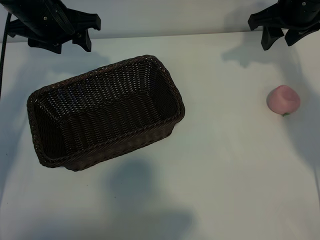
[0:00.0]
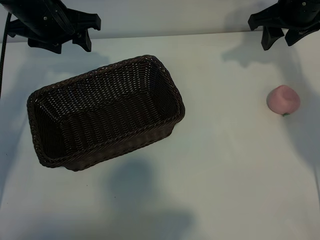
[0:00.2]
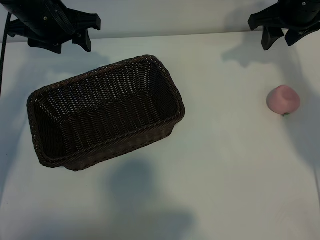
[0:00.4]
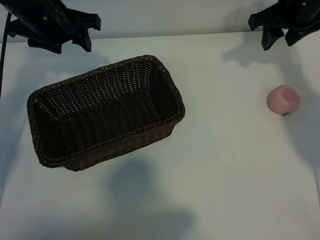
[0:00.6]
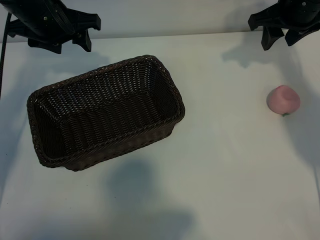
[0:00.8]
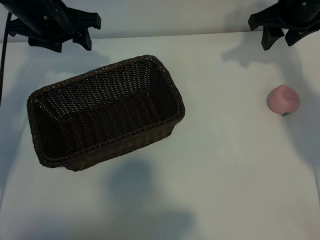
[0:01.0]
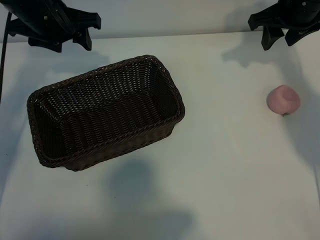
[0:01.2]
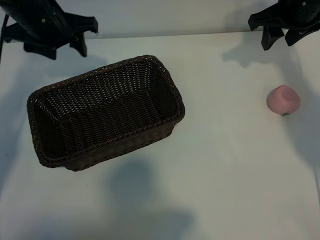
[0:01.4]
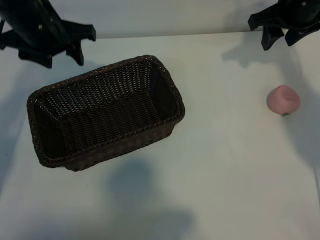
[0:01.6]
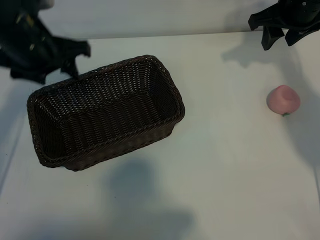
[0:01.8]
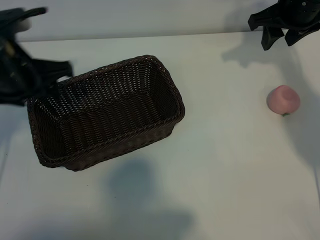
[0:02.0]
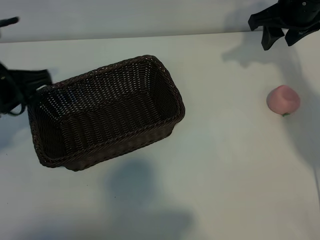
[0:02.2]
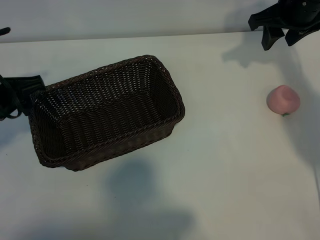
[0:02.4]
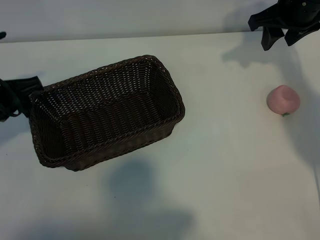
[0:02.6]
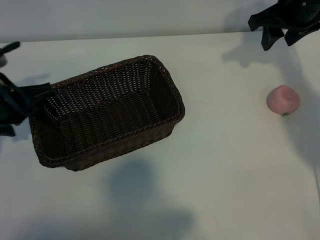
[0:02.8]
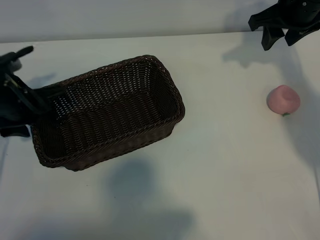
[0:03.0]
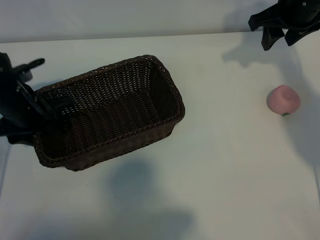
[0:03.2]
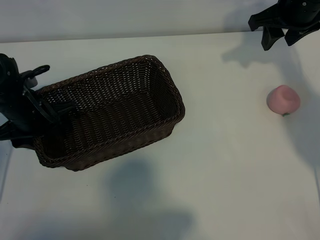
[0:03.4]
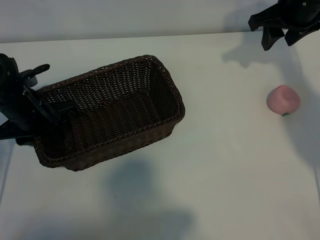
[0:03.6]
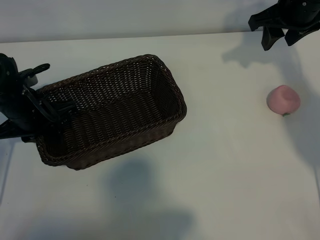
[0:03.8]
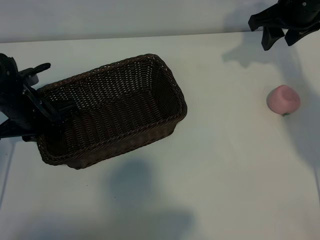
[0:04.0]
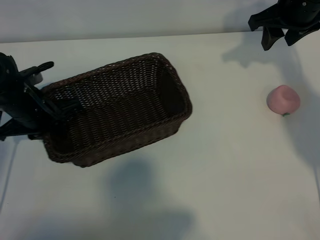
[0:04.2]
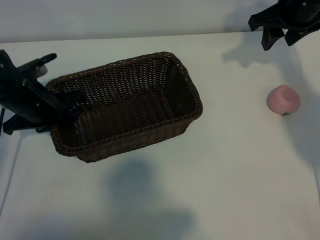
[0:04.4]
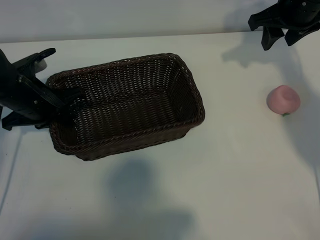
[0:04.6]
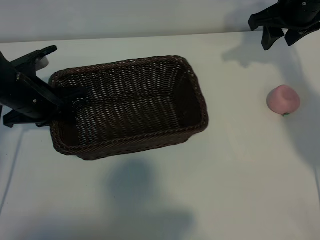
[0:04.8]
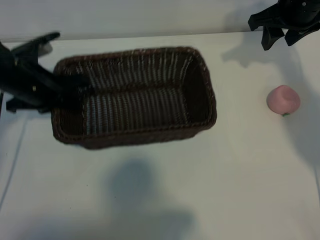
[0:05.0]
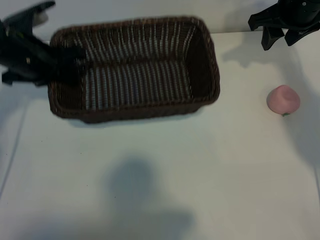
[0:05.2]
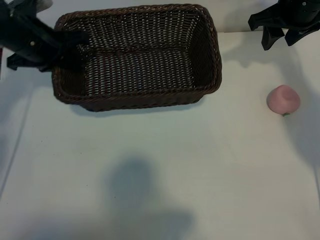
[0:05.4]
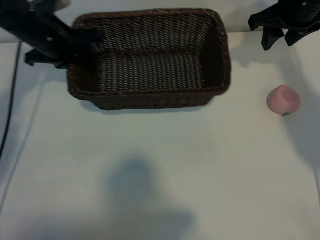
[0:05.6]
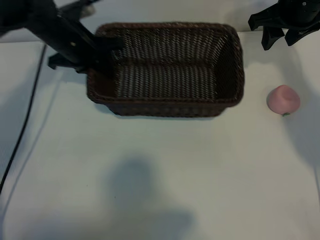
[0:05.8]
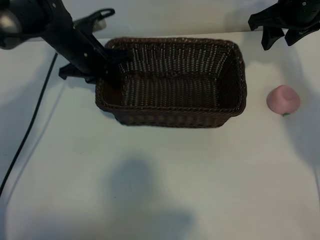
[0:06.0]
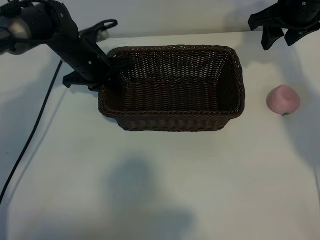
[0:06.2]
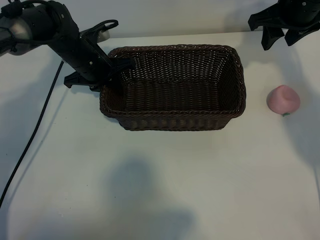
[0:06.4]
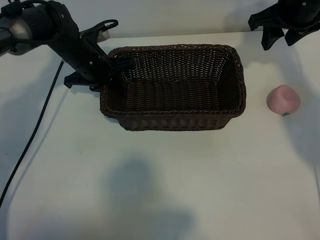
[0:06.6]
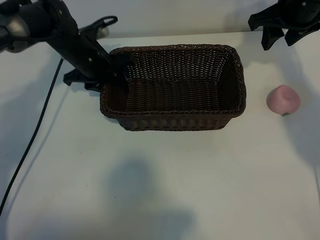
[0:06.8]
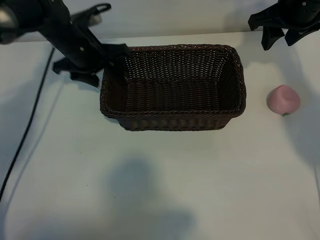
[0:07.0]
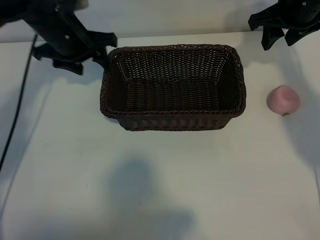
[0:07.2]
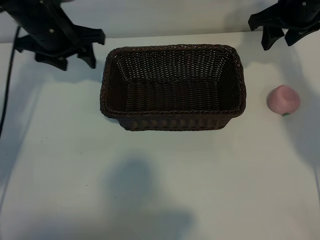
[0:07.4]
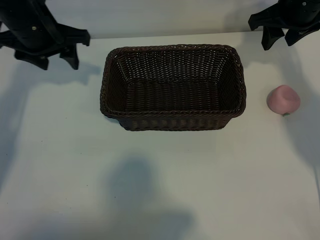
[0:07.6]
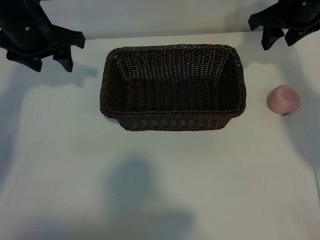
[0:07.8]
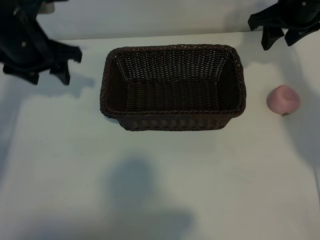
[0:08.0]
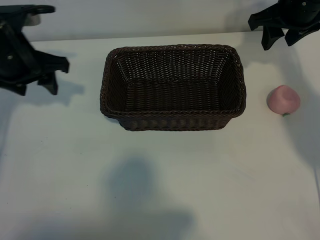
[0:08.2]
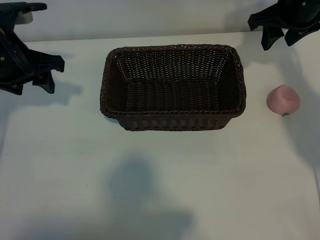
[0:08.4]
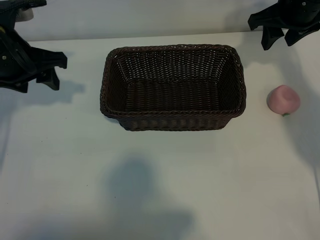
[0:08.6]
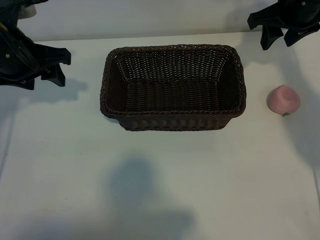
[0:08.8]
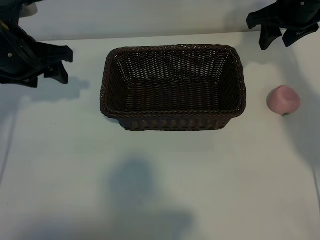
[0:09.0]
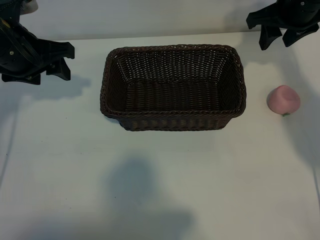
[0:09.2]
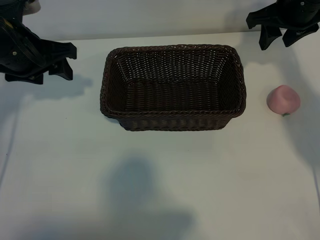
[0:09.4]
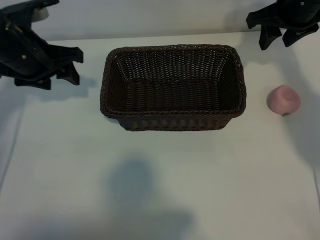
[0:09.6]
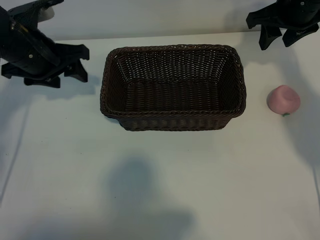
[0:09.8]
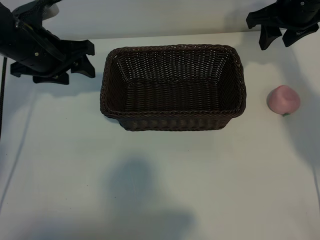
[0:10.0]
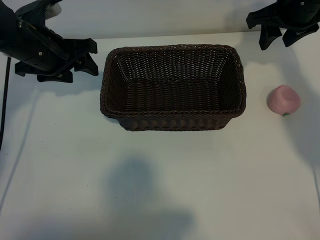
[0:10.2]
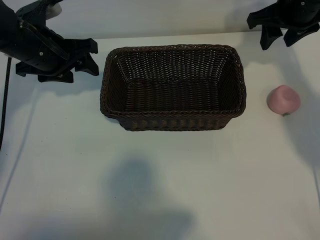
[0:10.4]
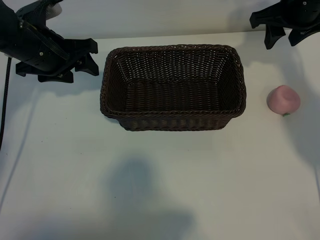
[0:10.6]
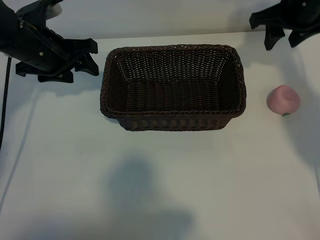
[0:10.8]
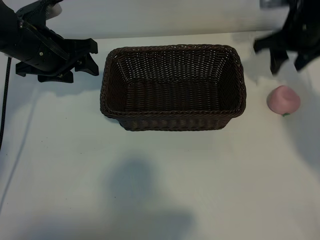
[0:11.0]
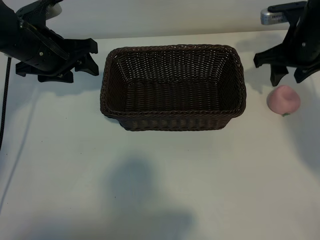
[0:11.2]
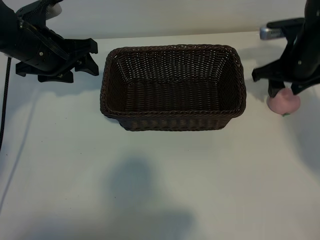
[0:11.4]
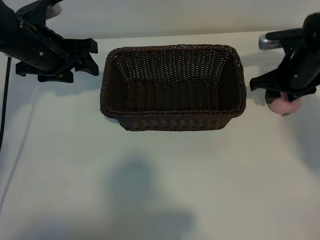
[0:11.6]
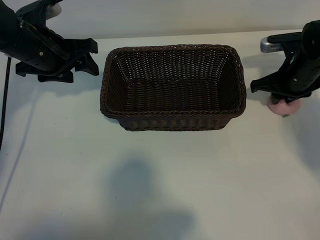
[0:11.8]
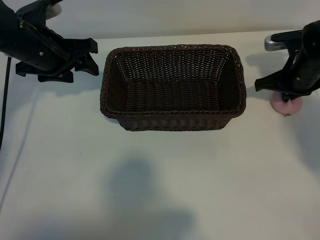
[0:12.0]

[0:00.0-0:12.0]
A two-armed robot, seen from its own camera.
Task of the whole recording: pick up the peach and put it into the basket.
Step, 0:01.0 to 0:03.6: Grasp the basket with left gripper.
Step, 0:03.8 to 0:06.8: Place the basket in the center of view with left gripper.
Step, 0:07.2 to 0:11.8: Grasp the peach with right gripper.

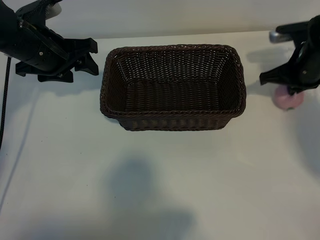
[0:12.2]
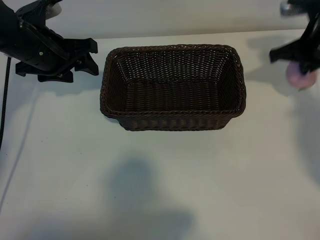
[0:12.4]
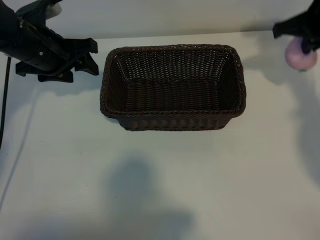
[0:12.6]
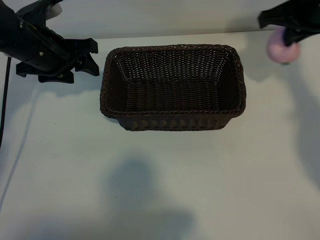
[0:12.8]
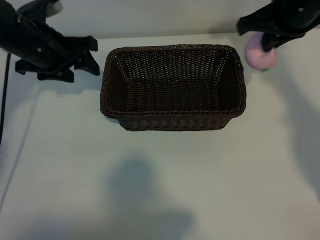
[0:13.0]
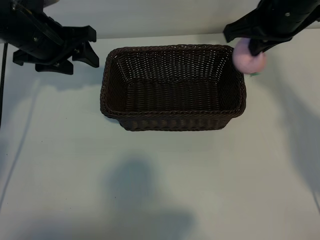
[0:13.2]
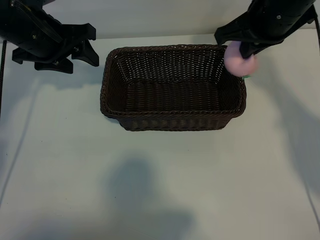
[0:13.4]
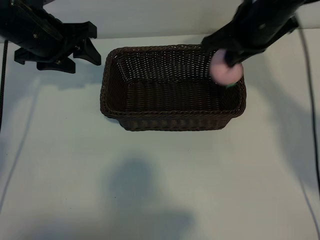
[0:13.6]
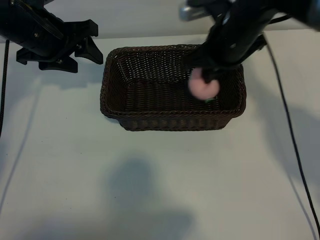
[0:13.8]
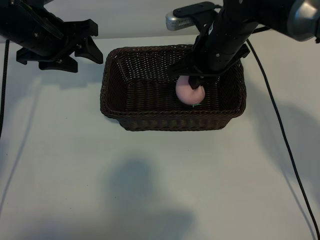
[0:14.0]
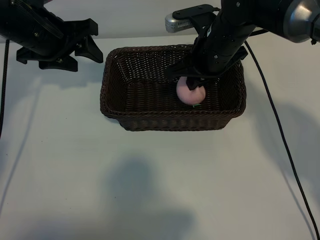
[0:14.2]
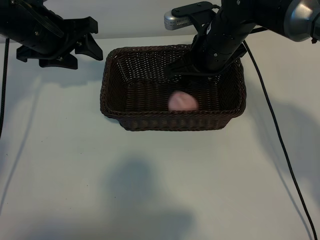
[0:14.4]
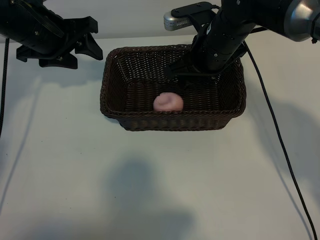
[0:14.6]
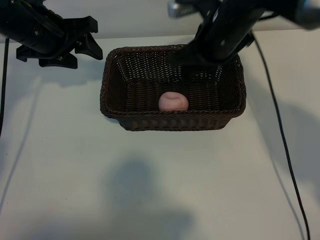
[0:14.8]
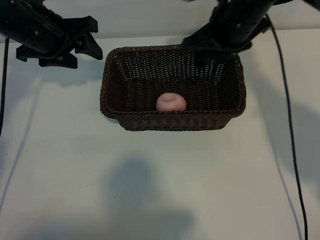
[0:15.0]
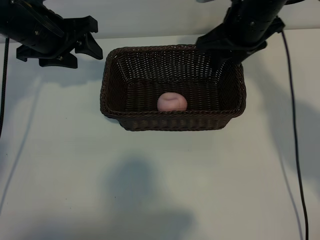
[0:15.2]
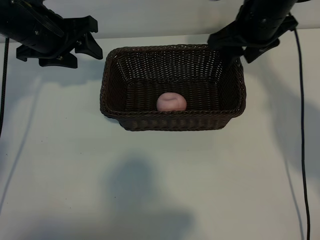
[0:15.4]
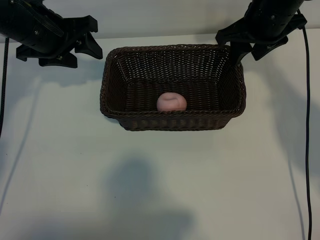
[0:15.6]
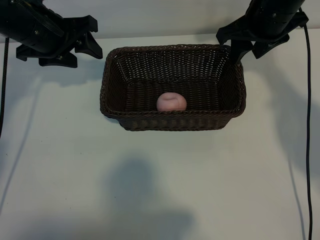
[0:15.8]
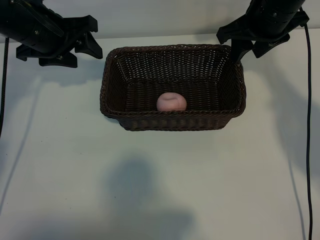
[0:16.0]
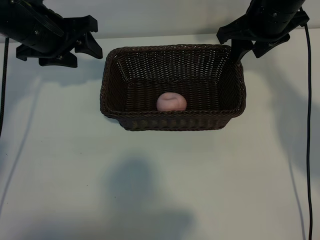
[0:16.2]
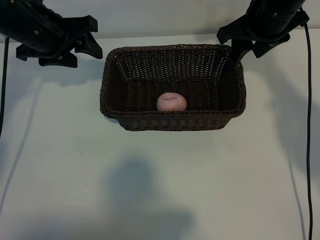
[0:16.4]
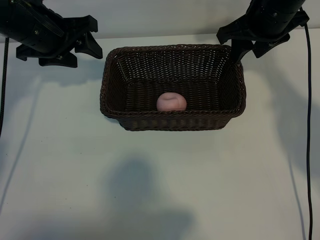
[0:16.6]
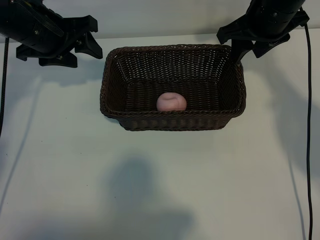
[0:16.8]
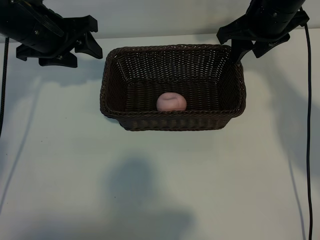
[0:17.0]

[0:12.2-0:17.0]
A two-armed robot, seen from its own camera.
Task of the whole recording: pick up the peach and put it into the basket.
Step, 0:12.2 to 0:14.4: Place the peach in the basket with right gripper.
